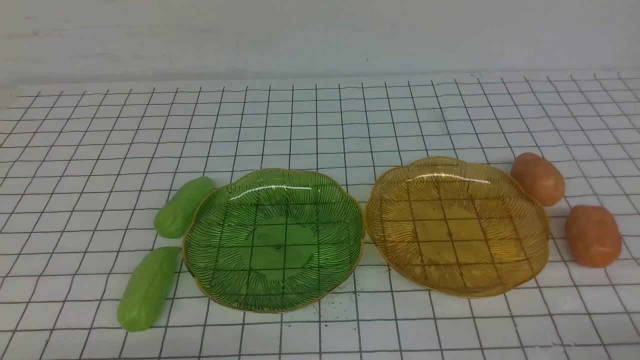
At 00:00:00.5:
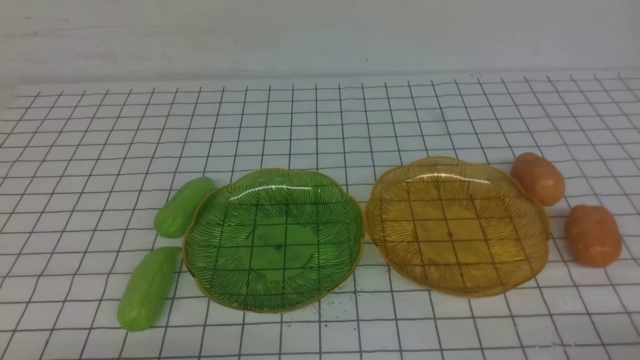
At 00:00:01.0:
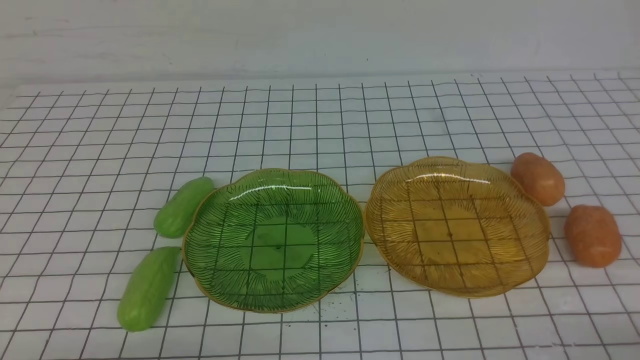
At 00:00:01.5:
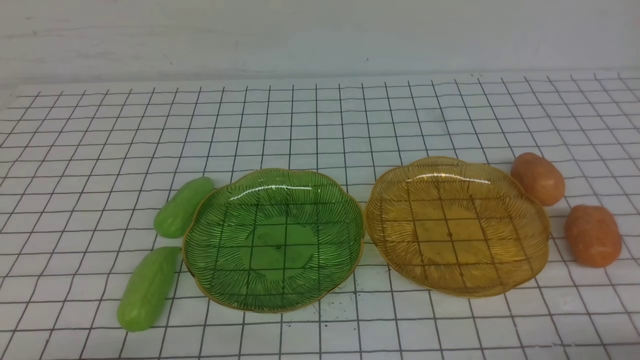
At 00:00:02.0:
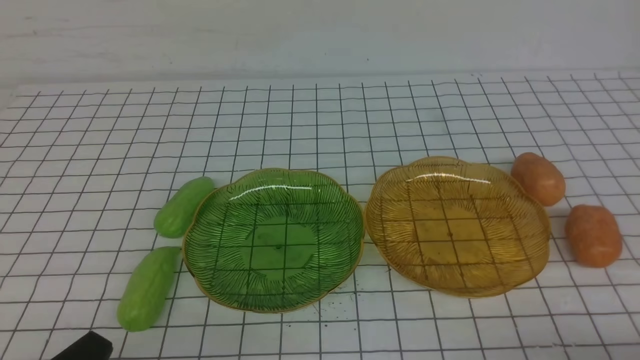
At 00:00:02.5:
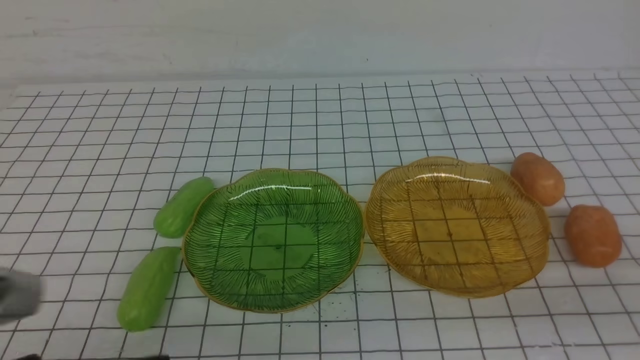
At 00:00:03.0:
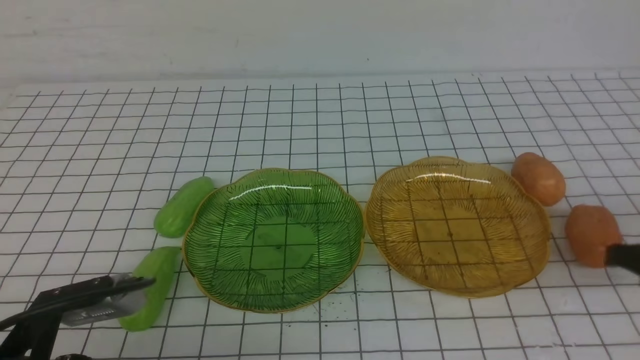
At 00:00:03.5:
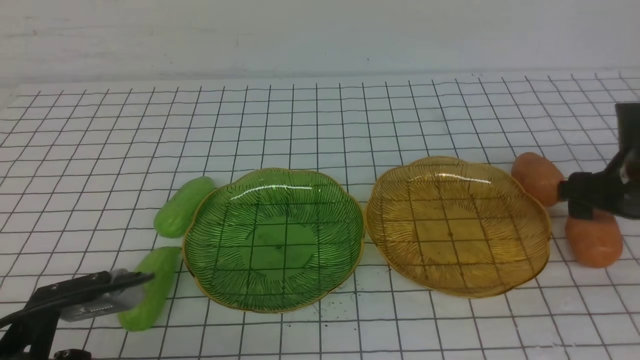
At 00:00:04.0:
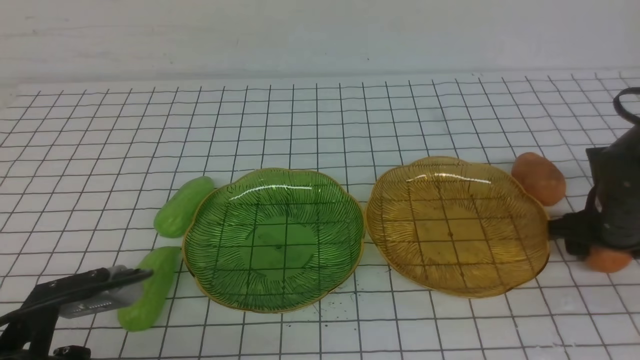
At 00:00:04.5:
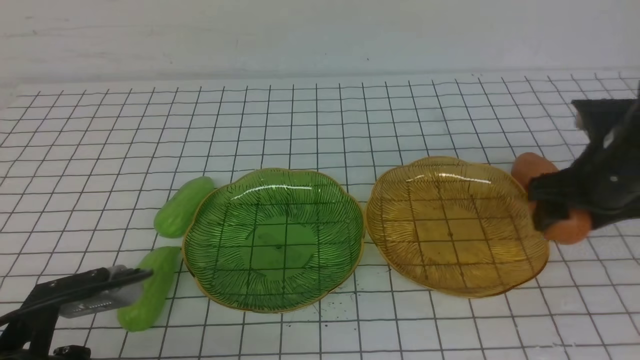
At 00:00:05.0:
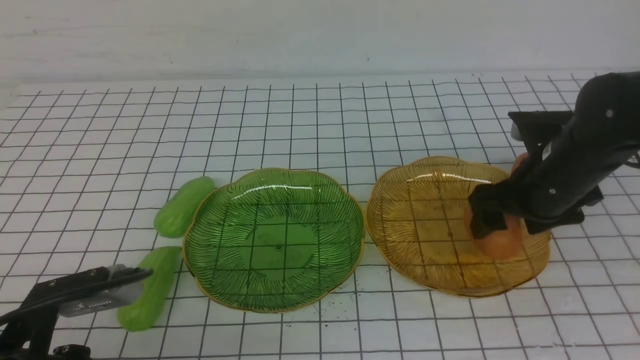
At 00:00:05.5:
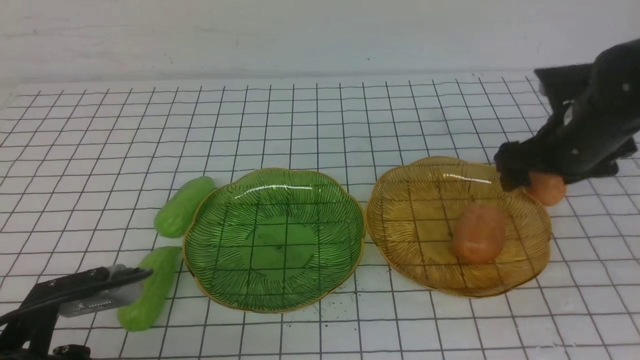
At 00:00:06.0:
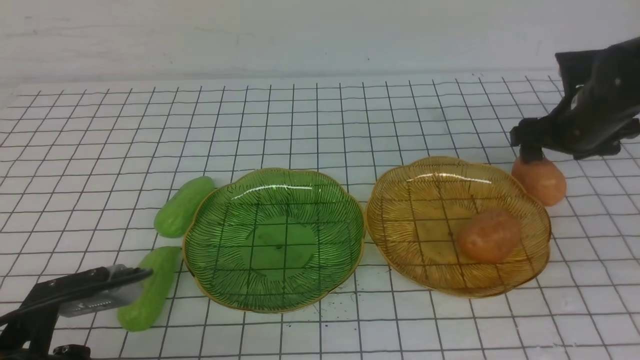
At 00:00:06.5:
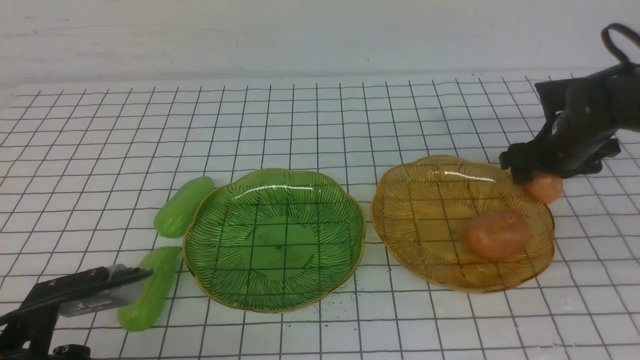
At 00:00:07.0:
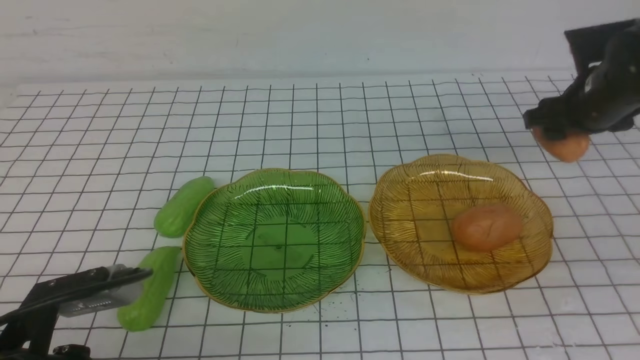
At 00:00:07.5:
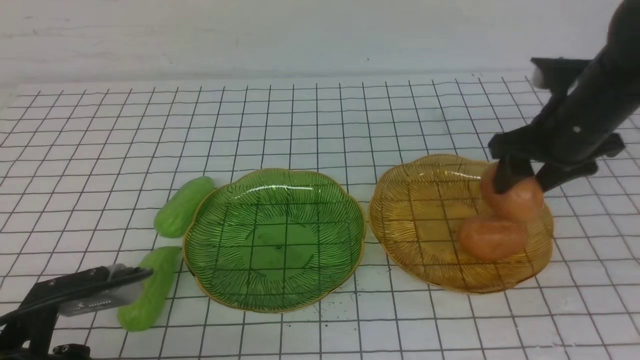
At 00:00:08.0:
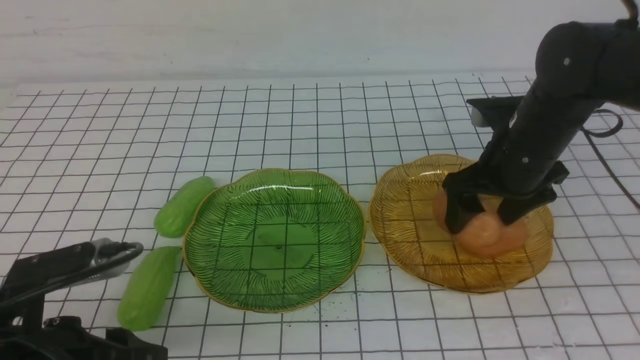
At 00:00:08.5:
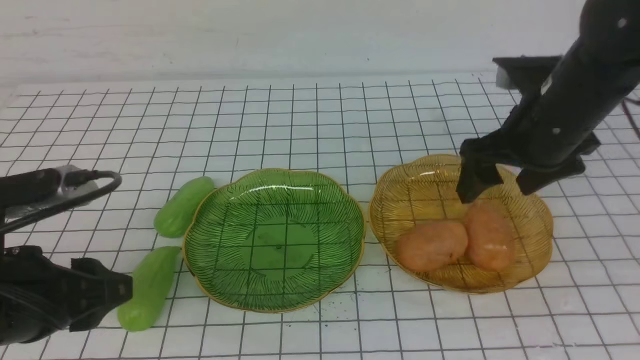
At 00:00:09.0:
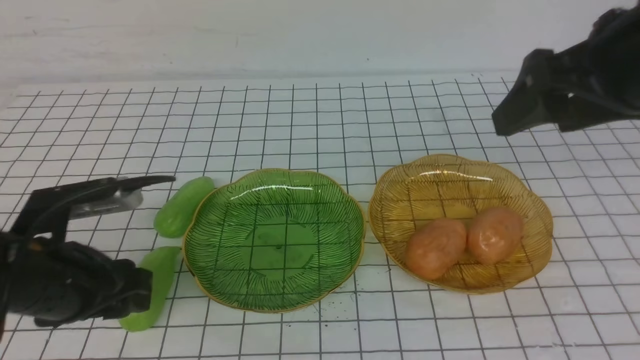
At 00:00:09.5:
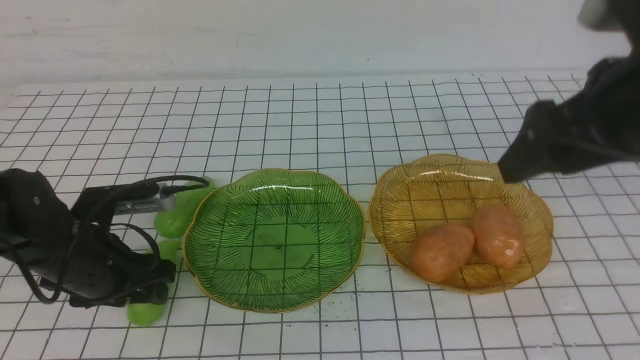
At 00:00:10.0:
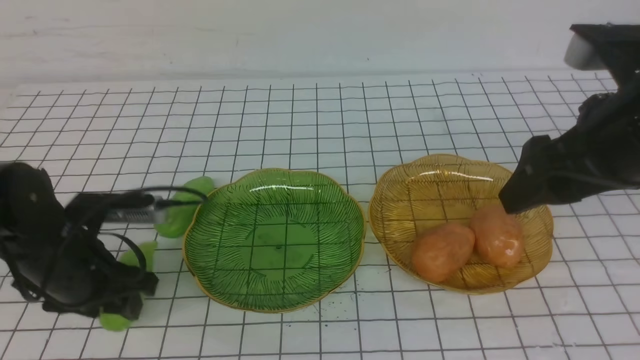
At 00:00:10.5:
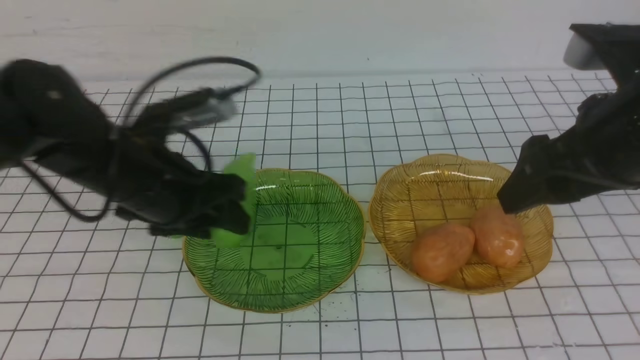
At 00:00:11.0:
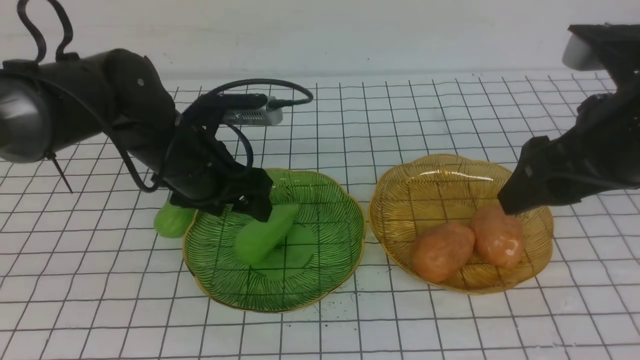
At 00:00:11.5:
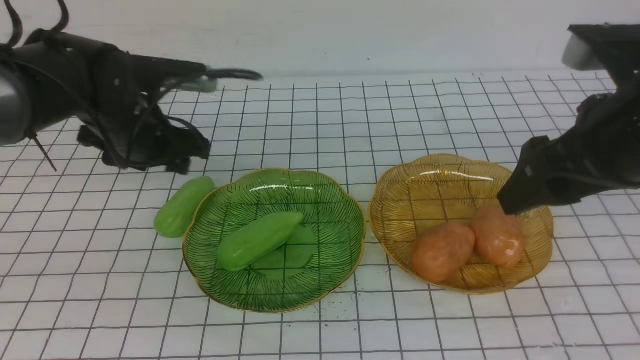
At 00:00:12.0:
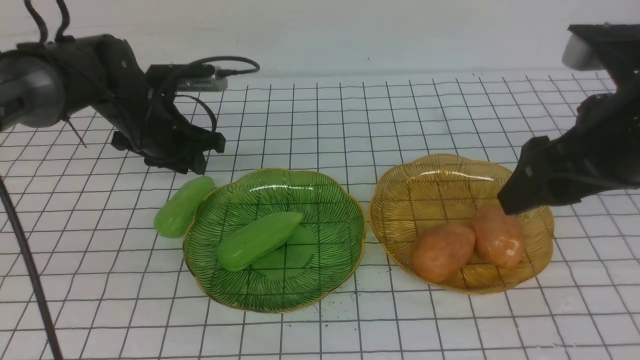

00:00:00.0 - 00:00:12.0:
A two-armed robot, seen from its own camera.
Step, 00:00:00.0 - 00:00:08.0: Grab a potato with your right arm and put it on the right plate.
Step, 00:00:08.5 - 00:00:10.5: use the left arm to grab a chayote and put it into the left plate.
00:00:02.0 - 00:00:04.0: The right gripper goes some 30 cm forward, and opens. Meanwhile the left gripper heads forward, covering approximately 5 cm.
00:00:04.0 - 00:00:06.0: The right gripper moves forward and upward, about 10 cm.
00:00:06.0 - 00:00:08.0: The right gripper is displaced to the left by some 10 cm, while the left gripper opens.
00:00:08.0 - 00:00:10.0: The right gripper moves backward and upward, roughly 15 cm. The left gripper travels forward by approximately 15 cm.
00:00:10.0 - 00:00:12.0: The left gripper moves forward, about 15 cm, and closes up.

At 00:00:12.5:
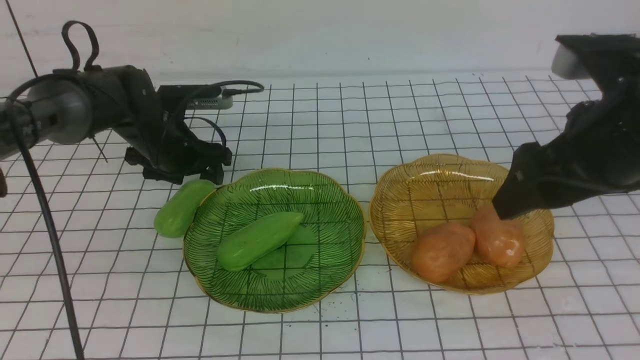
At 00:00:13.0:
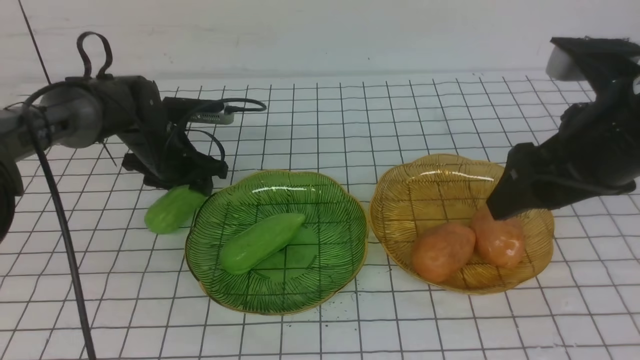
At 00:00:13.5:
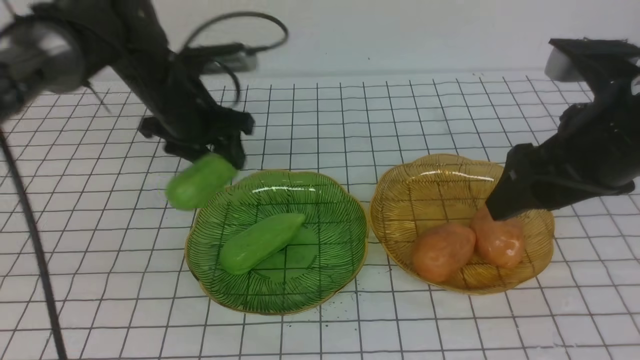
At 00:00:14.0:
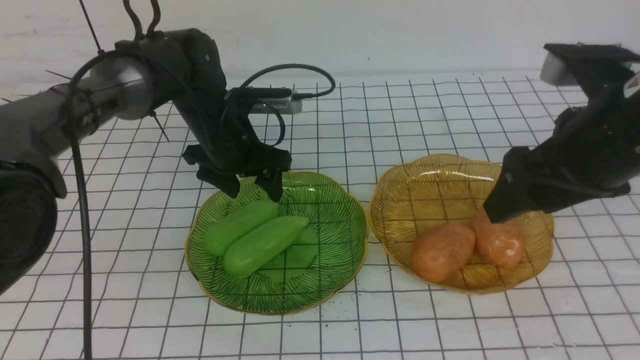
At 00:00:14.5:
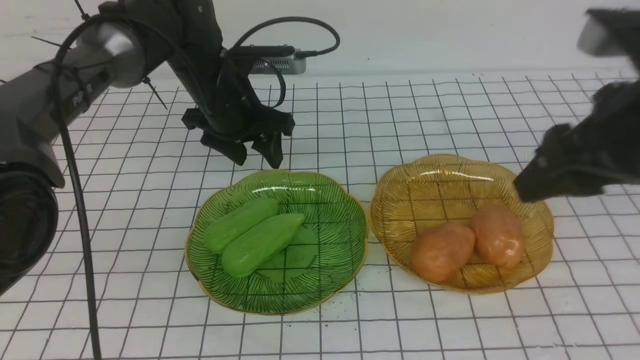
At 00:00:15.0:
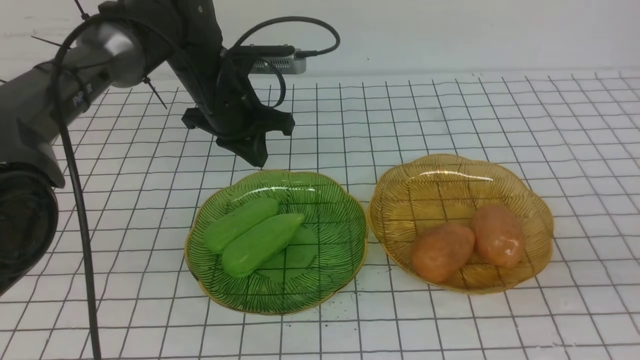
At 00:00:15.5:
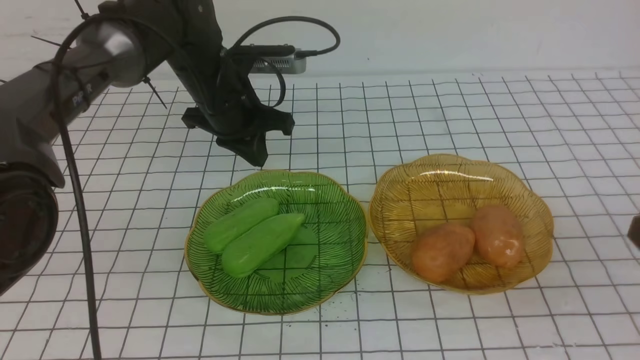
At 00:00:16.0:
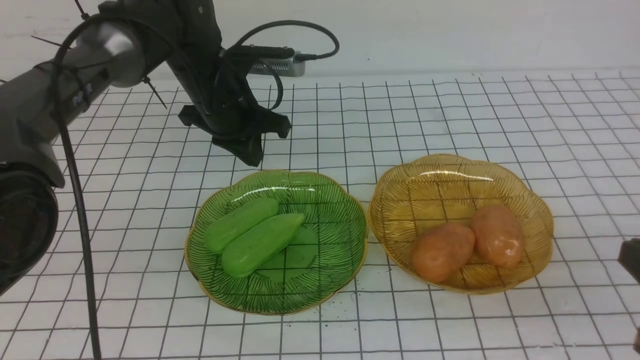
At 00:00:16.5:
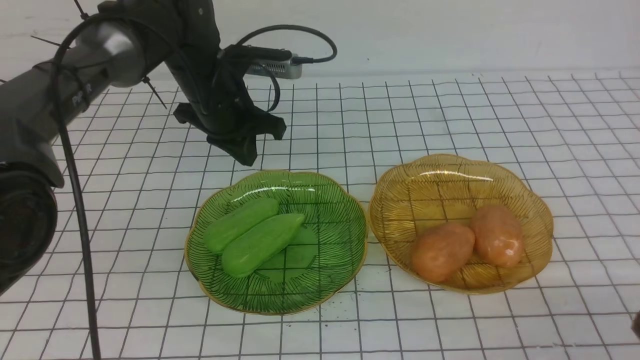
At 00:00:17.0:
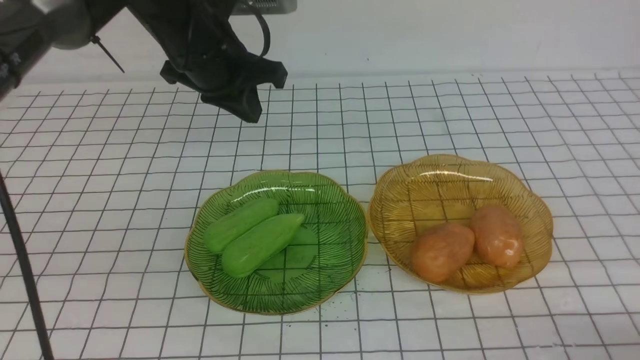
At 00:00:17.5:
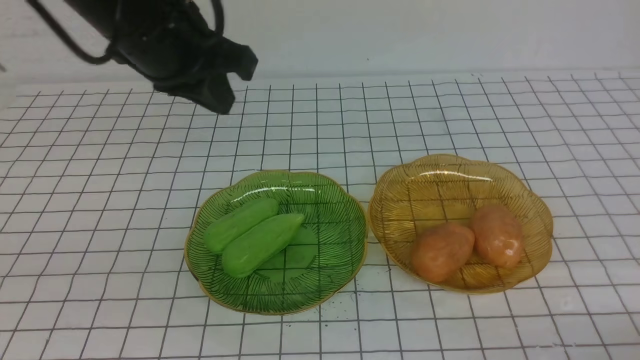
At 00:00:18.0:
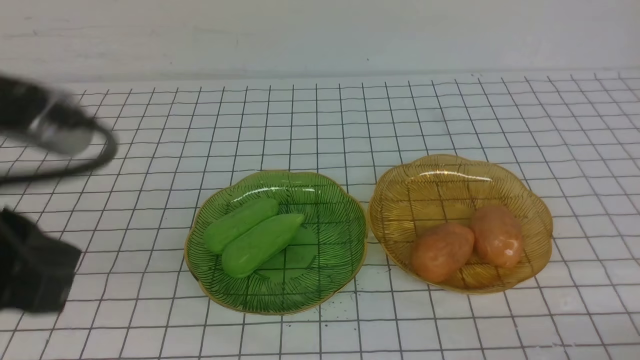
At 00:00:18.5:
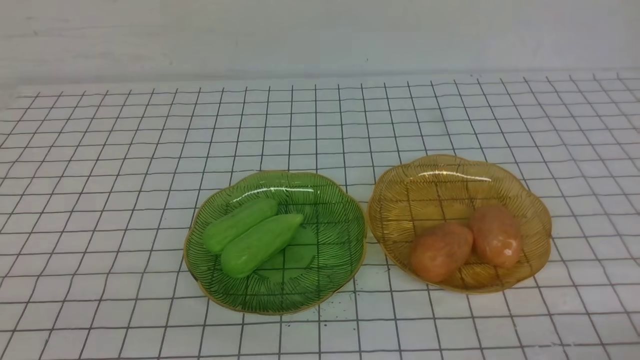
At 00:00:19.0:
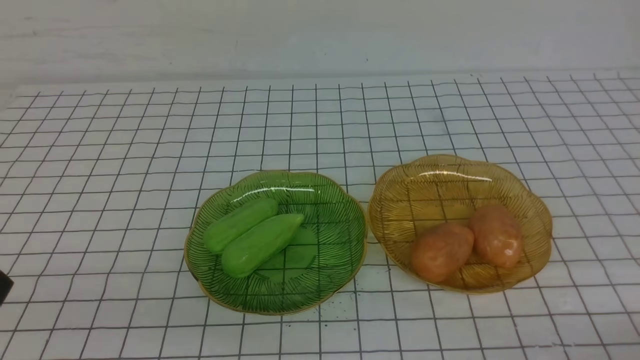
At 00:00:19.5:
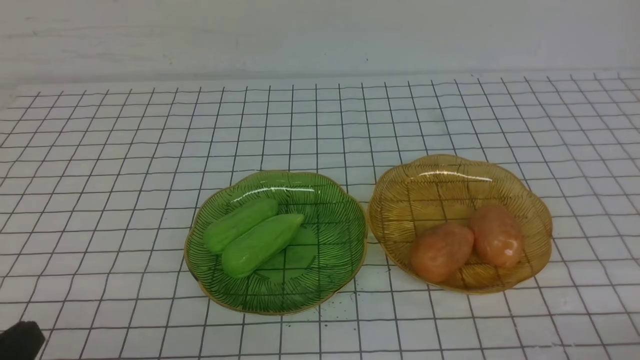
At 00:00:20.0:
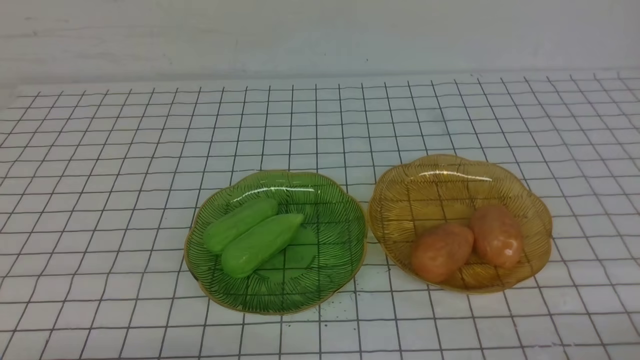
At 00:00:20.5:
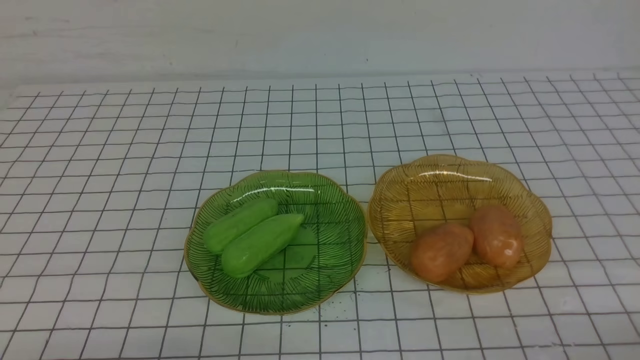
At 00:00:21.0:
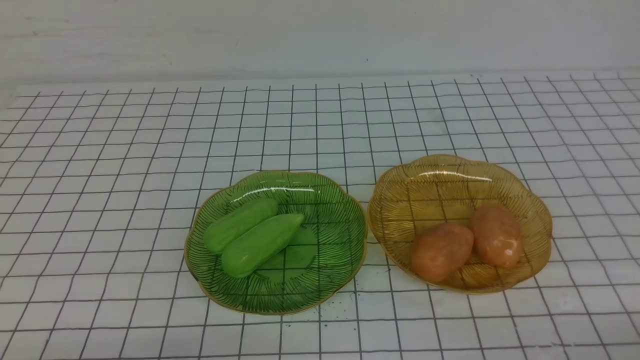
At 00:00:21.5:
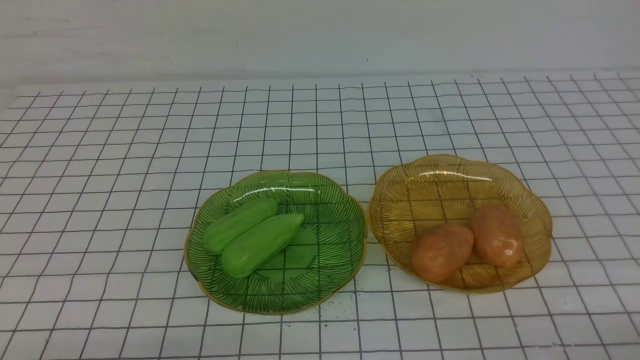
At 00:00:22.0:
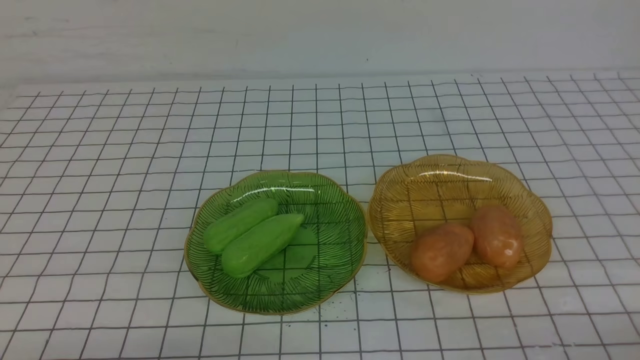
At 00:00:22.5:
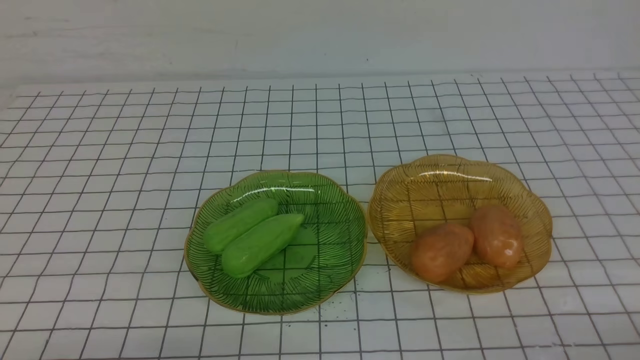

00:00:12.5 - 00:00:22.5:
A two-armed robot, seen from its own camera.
Step, 00:00:12.5 - 00:00:14.0: use the left arm to grab a chayote and put it into the left plate.
00:00:12.5 - 00:00:14.5: The left gripper travels to the right and upward by approximately 10 cm.
00:00:14.5 - 00:00:16.5: The left gripper closes, while the right gripper is displaced backward and downward by about 20 cm, and closes.
00:00:16.5 - 00:00:18.5: The left gripper is displaced backward by roughly 40 cm. Meanwhile the right gripper moves downward, about 5 cm.
00:00:20.5 - 00:00:22.5: The two grippers keep their place.
